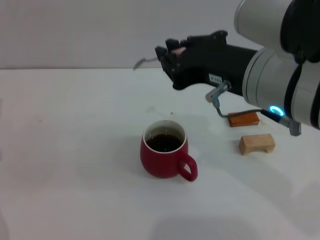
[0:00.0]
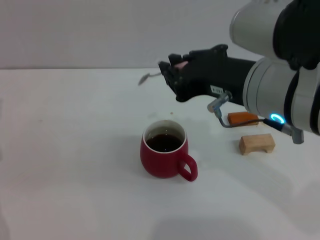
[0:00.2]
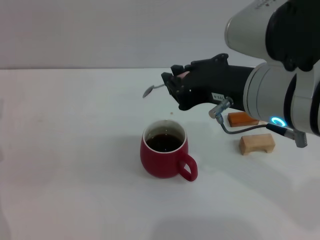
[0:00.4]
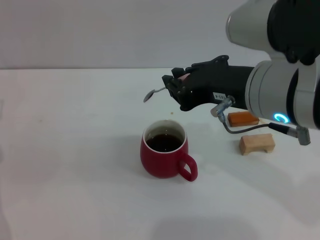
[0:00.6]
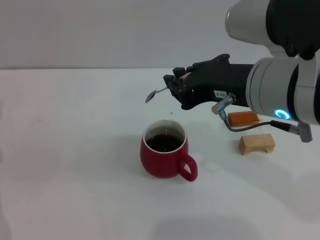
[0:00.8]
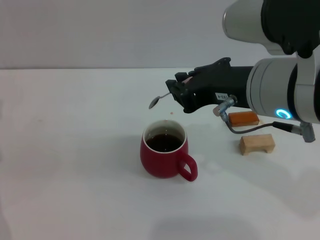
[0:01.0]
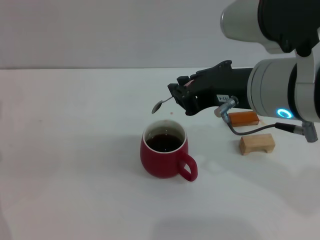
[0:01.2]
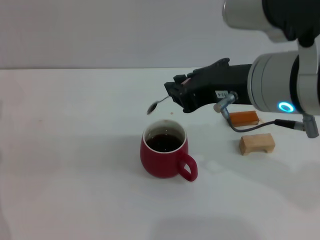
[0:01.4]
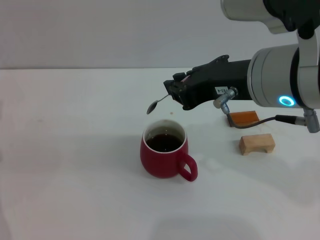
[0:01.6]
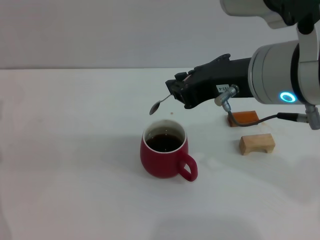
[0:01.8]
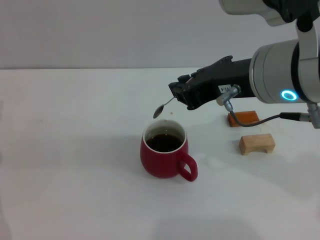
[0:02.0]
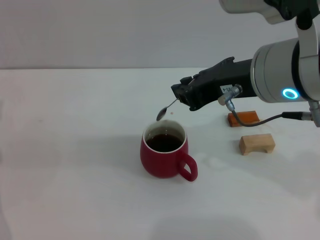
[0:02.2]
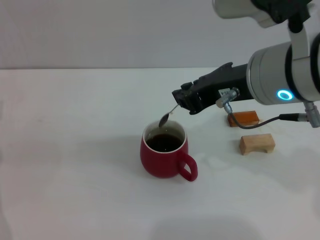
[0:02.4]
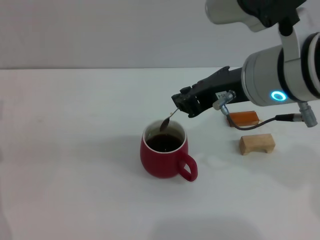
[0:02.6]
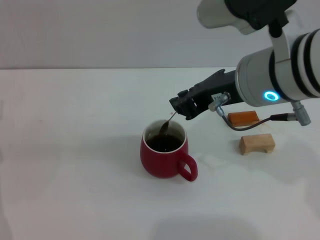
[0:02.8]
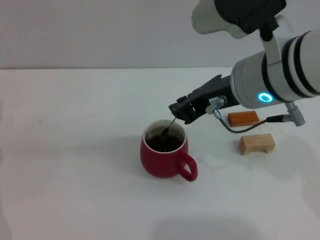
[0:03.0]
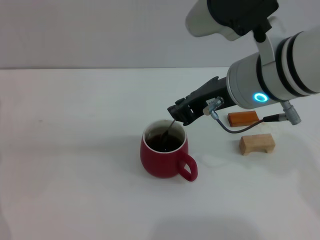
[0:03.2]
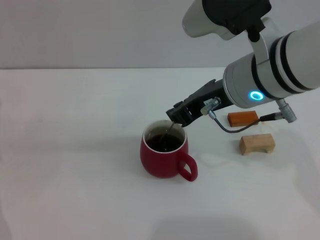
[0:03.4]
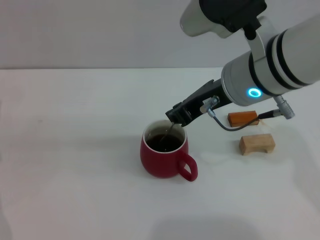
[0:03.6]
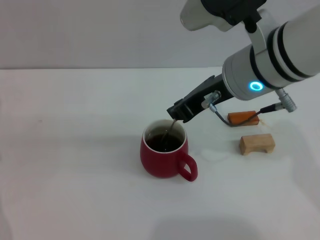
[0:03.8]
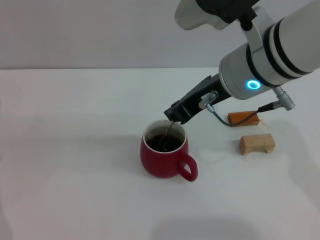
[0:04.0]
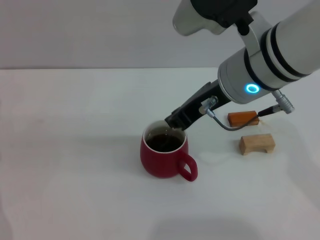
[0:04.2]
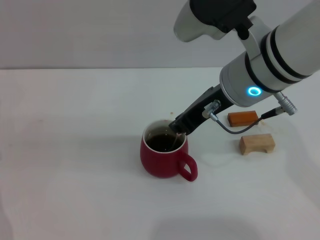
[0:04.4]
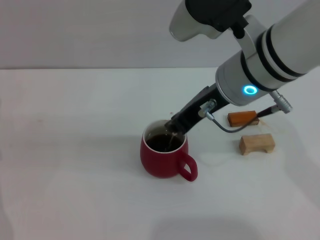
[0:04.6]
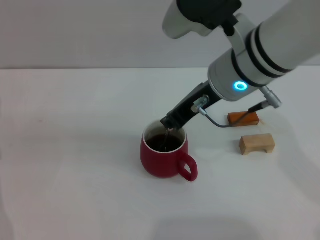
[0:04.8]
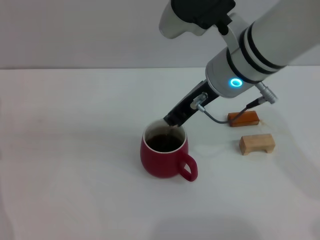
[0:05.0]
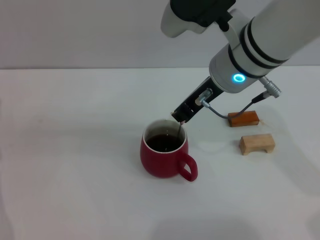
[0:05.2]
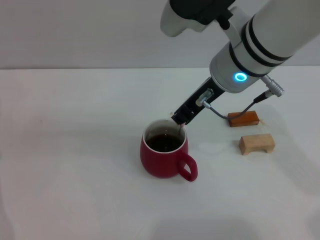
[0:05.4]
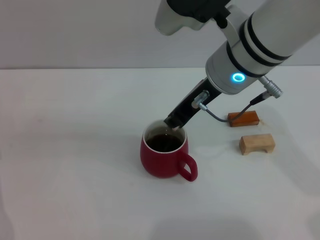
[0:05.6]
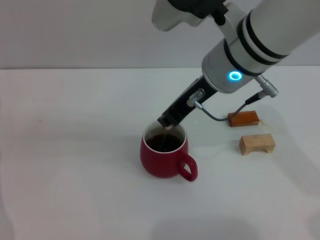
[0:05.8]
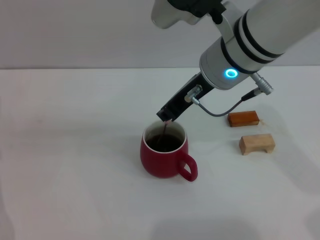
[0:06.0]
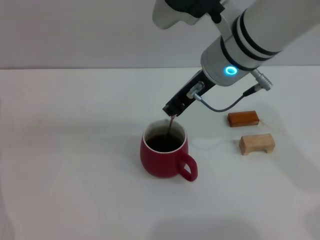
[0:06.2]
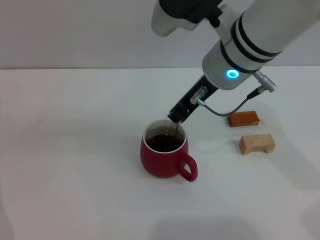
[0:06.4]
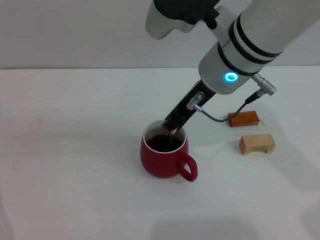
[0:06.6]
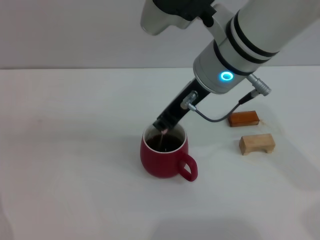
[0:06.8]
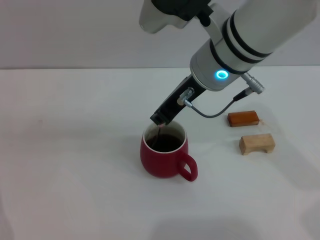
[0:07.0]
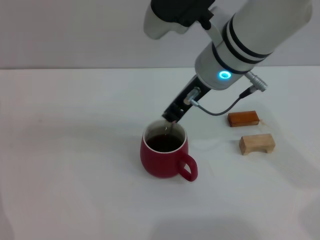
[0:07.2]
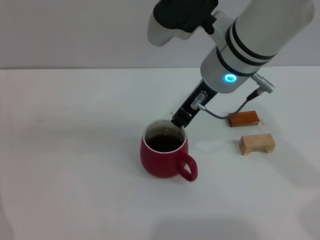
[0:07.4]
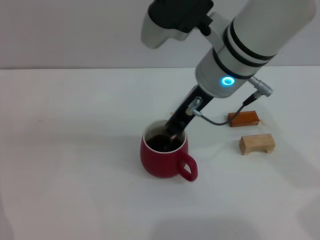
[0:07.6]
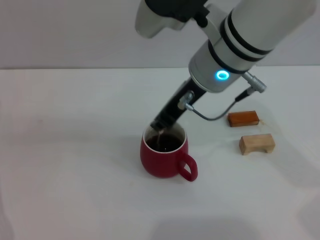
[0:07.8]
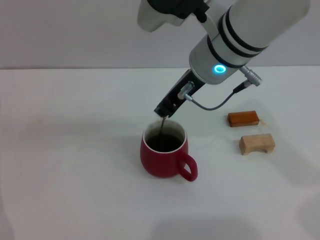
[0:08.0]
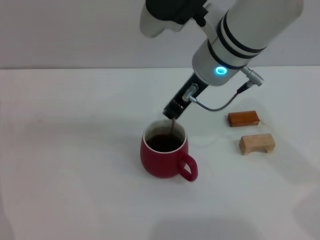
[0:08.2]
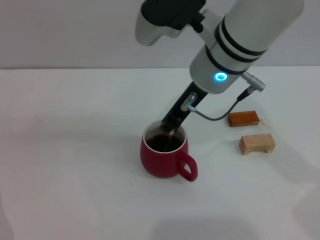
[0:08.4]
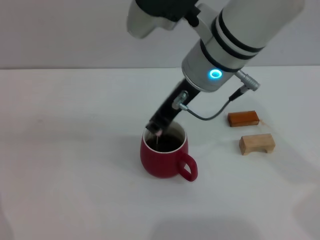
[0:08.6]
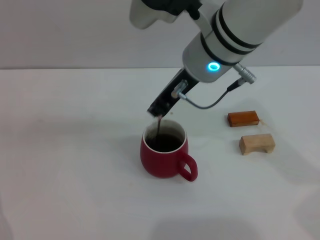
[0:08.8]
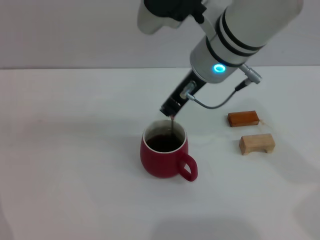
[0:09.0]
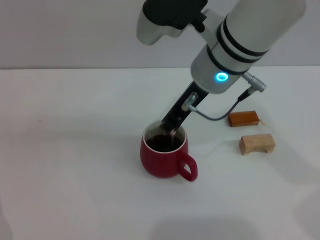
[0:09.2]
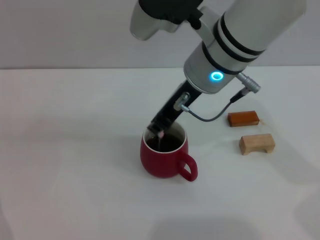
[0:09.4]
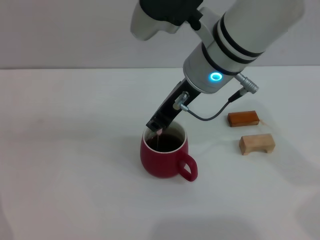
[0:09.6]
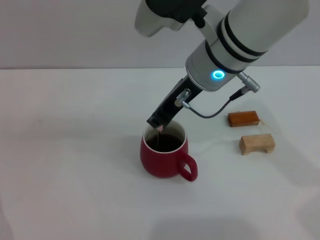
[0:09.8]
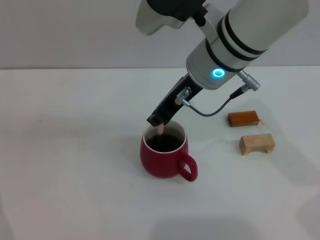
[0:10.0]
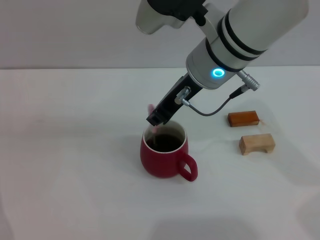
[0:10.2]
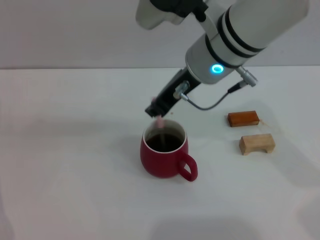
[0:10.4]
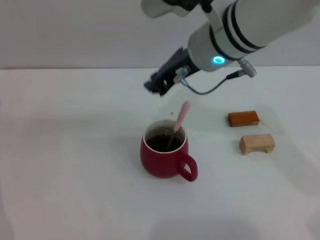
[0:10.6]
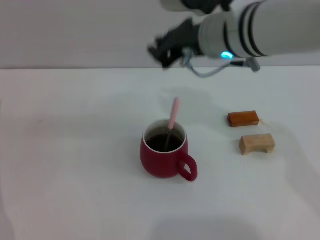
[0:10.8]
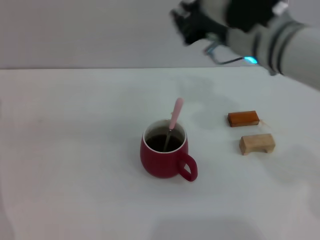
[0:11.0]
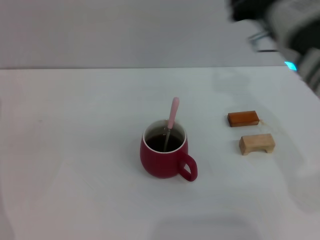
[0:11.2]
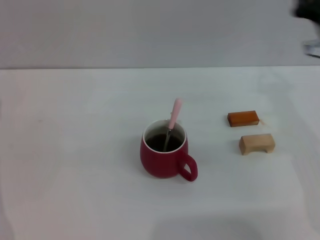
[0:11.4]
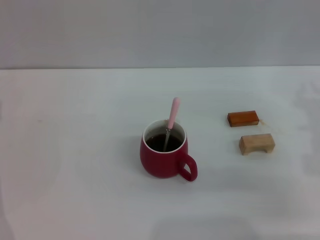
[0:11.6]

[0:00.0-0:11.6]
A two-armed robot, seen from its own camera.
Task of the whole recording: Move the red cup to the center, lift the pink spoon, stir it three times in the cup, and put the spoon into the cup.
Step, 0:00.0 to 0:10.4: Stir the coffee in the cup with the right gripper.
0:00.0 to 0:01.4: The grippers make only small movements.
0:01.4 to 0:02.8: The grippers make only small movements.
0:02.8 to 0:04.4: The grippers stay close to where they were, moving slightly.
0:04.4 to 0:10.2: The grippers move only a little.
0:10.2 to 0:11.6: The right gripper moves to the right and downward, roughly 25 cm.

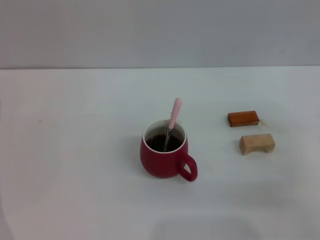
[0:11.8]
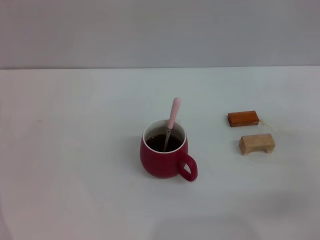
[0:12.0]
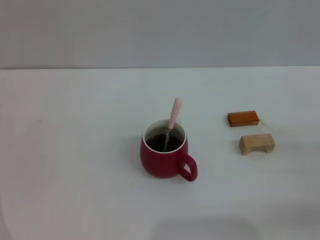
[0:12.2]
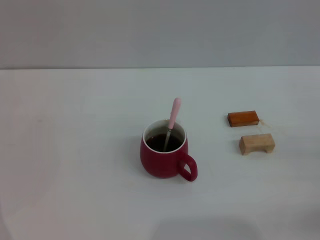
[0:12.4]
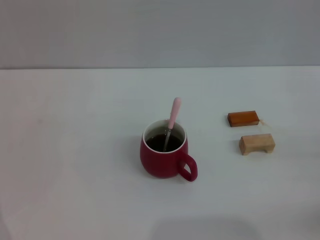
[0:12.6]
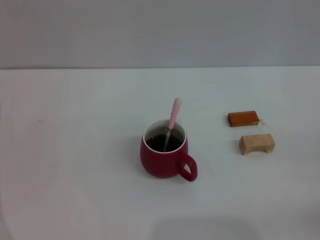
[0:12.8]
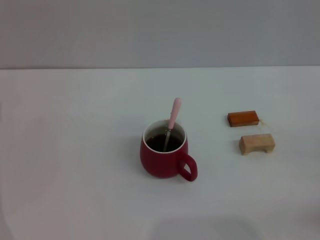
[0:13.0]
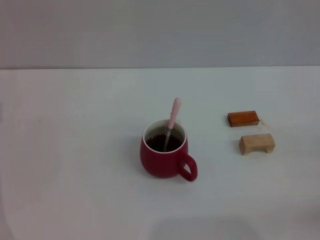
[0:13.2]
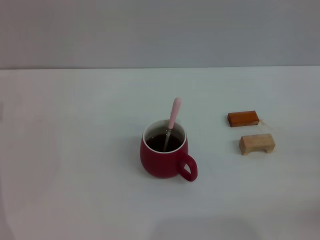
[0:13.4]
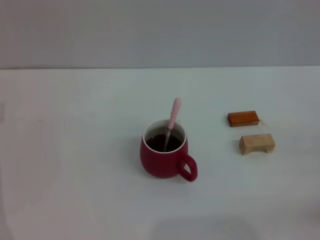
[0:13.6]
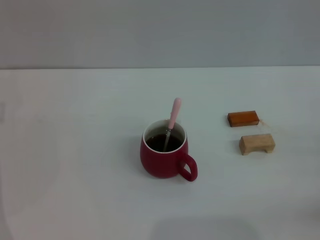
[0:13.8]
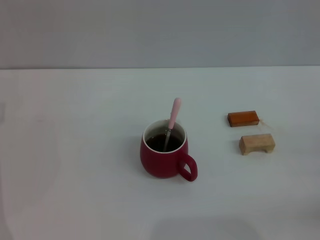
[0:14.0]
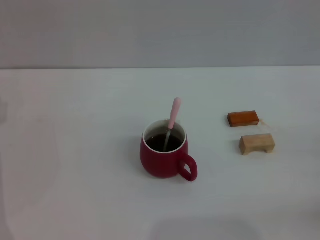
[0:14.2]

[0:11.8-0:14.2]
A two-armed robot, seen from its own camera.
Task of the whole recording: Move the red cup to the center, lift the pink spoon, stir it three times in the cup, and put the spoon into the cup.
0:11.8 to 0:13.0: The right gripper goes roughly 10 cm to the right, and opens up.
0:13.0 to 0:14.2: Both grippers stay put.

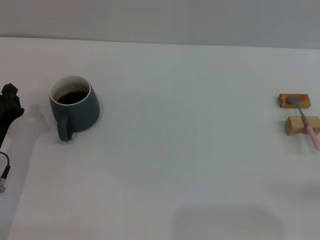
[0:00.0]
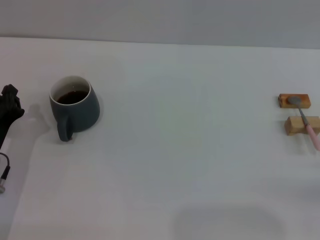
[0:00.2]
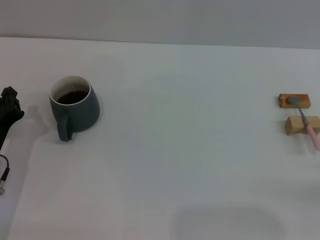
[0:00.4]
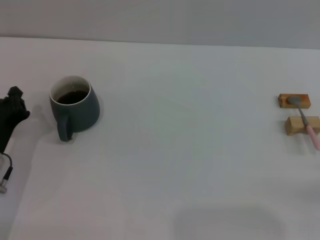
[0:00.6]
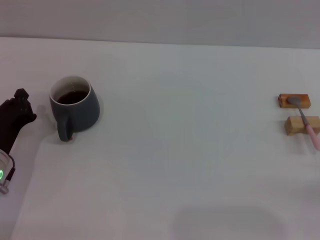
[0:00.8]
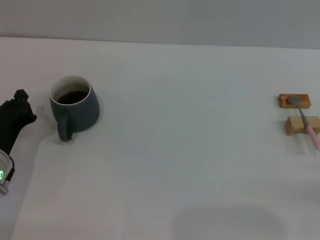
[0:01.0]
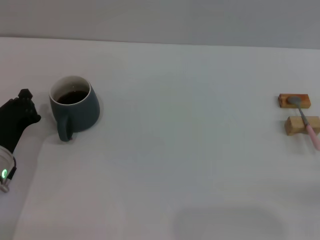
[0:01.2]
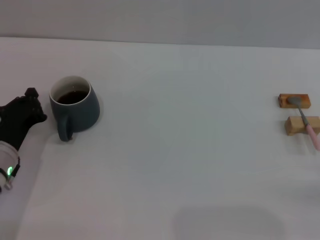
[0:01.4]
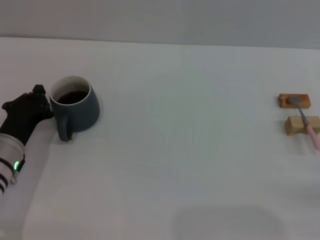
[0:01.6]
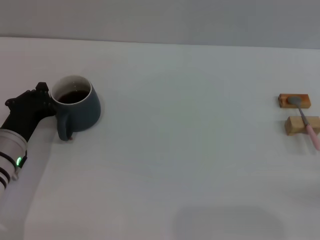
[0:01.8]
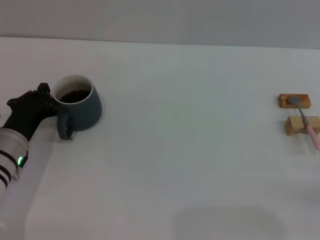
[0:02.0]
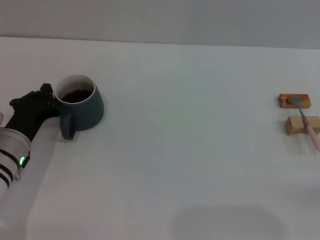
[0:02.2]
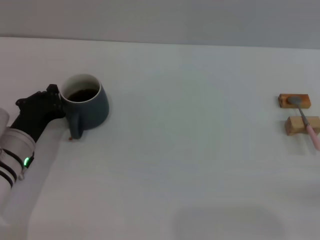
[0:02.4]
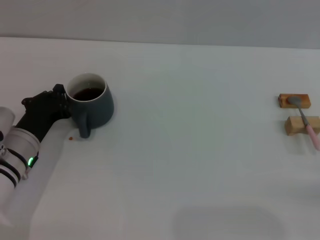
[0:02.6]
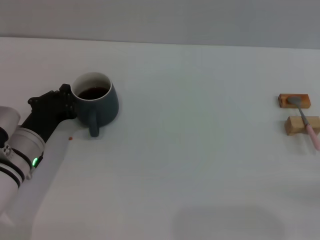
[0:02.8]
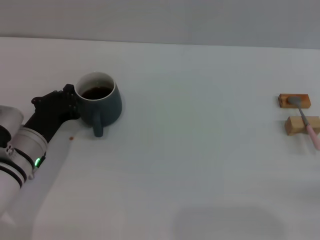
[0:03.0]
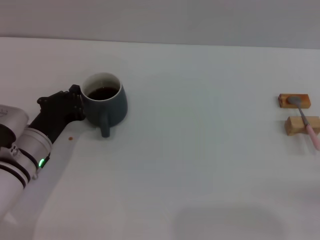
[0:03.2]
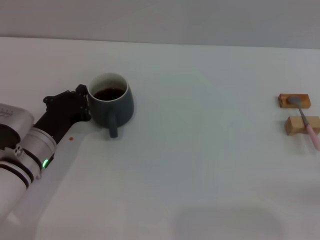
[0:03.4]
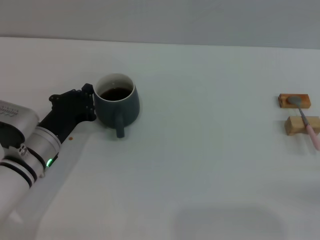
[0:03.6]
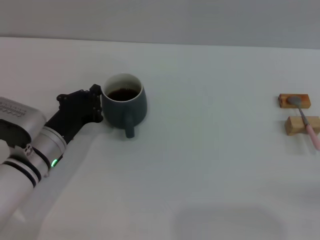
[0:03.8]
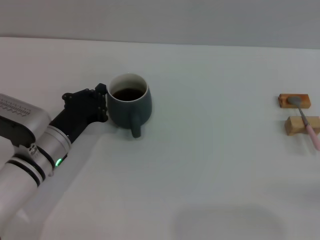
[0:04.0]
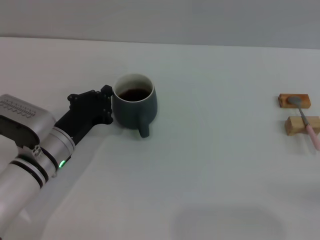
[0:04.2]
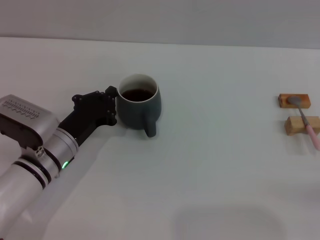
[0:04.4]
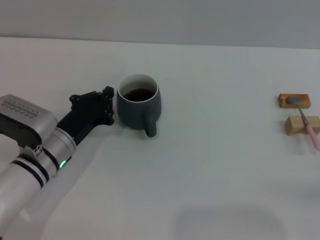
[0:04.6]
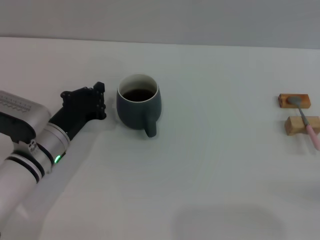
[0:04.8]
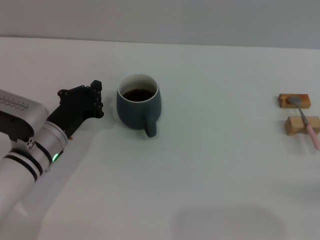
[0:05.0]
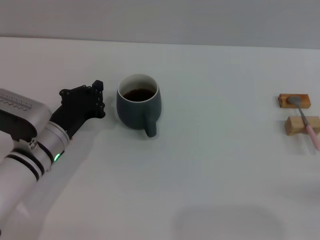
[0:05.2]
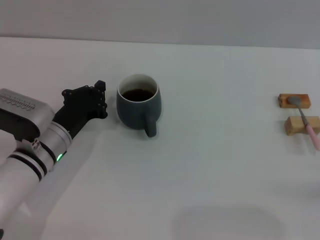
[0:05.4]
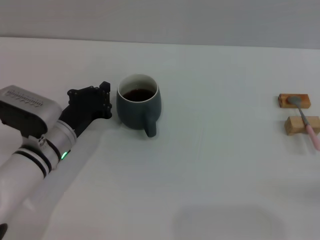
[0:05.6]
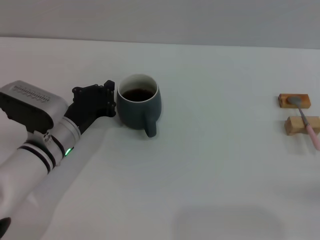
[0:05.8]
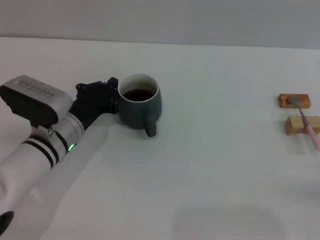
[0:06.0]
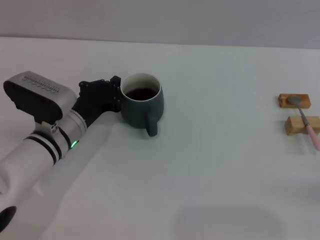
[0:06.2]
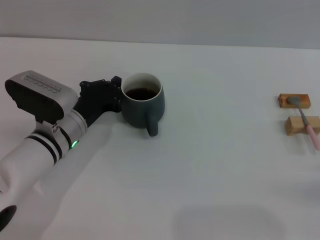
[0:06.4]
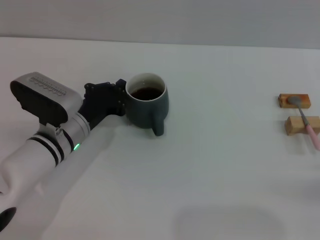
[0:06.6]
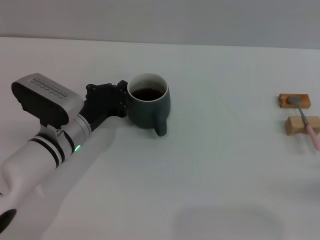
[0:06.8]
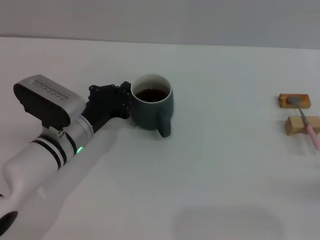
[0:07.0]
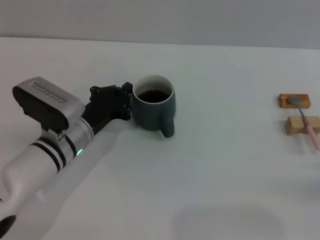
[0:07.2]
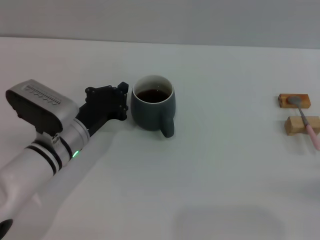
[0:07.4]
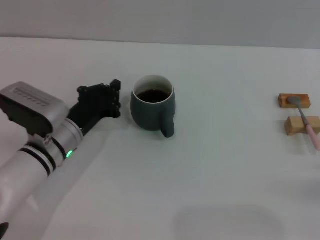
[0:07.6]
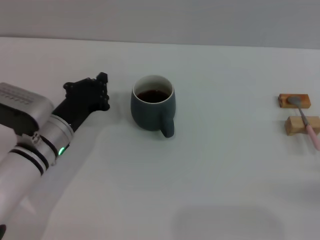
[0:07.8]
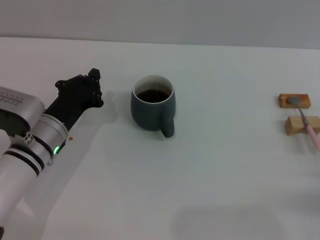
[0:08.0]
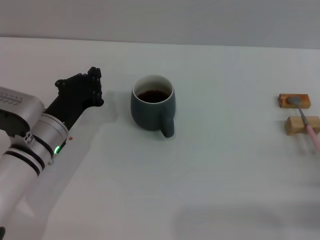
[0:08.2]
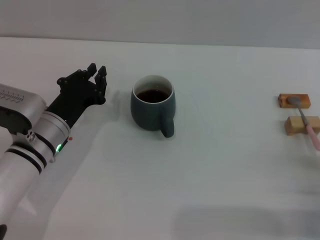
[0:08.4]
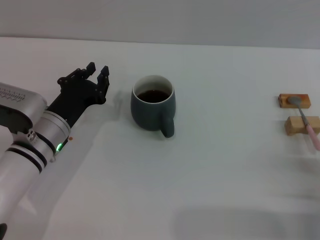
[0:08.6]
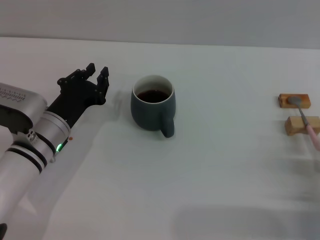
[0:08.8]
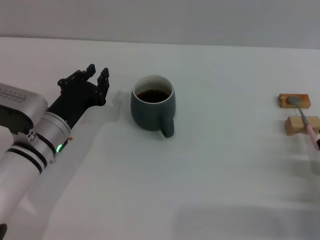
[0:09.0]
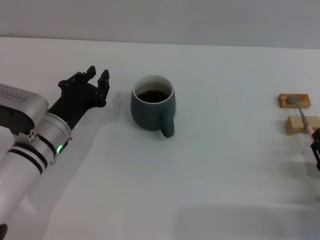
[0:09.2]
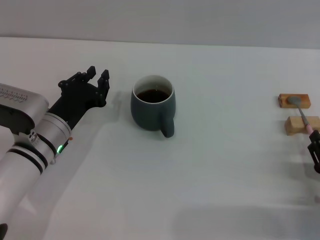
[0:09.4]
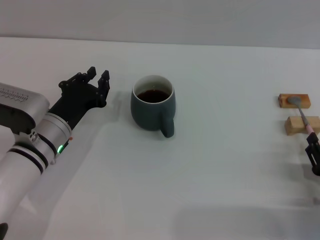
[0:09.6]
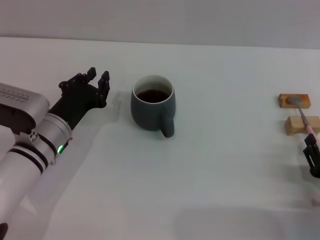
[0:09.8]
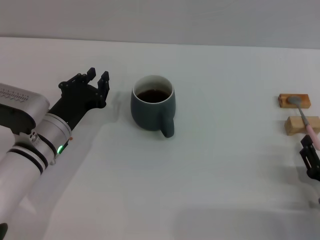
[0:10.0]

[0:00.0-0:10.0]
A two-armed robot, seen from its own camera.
Task of the whole recording: Move the grey cup to the center, lift the pink spoon, stir it three times in the cup, and put the spoon into the cup.
Step, 0:00.0 to 0:10.0: Move the cup with coffee to the center of view with the left gripper.
0:00.0 to 0:01.4: The grippers move only a little.
0:01.4 to 0:02.8: The grippers make only small movements.
0:02.8 to 0:05.8: The grippers make only small movements.
0:05.8 to 0:07.2: The grippers move only a little.
0:07.2 to 0:08.6: The left gripper opens up, while the right gripper shifts some 10 cm to the left and backward.
0:08.6 to 0:10.0: The left gripper opens its fingers.
